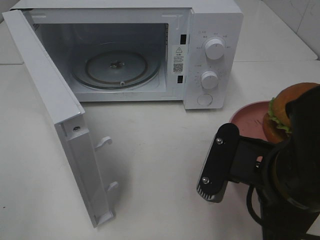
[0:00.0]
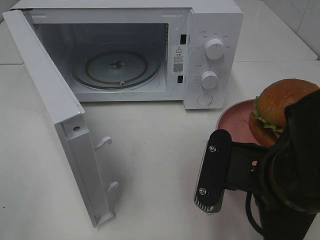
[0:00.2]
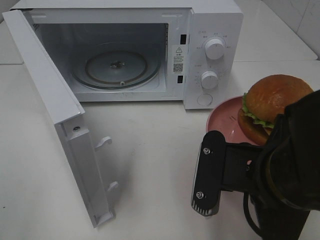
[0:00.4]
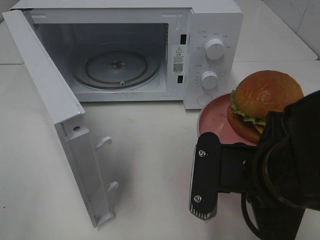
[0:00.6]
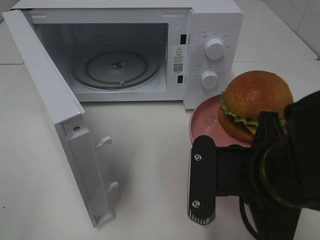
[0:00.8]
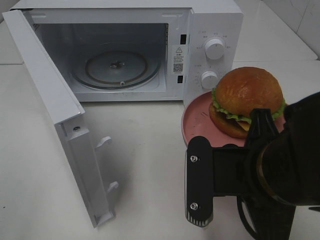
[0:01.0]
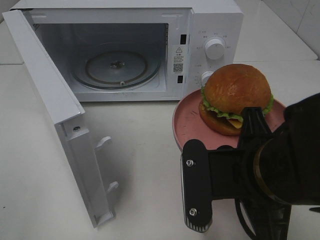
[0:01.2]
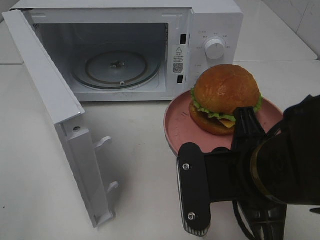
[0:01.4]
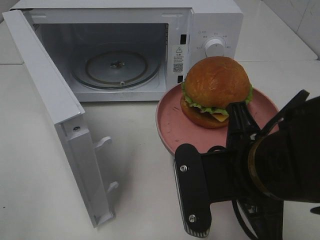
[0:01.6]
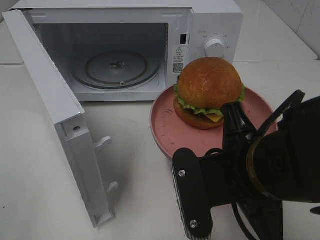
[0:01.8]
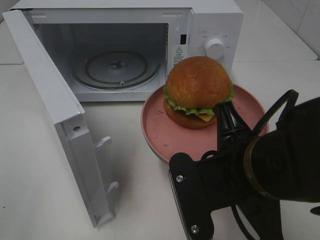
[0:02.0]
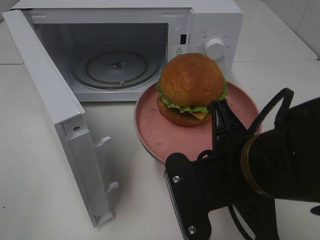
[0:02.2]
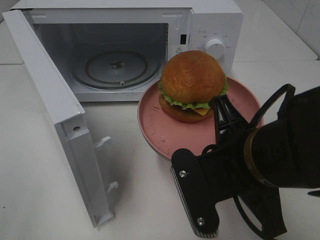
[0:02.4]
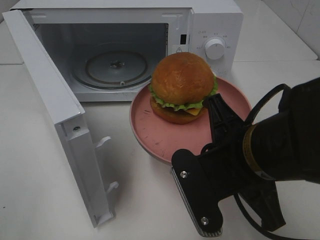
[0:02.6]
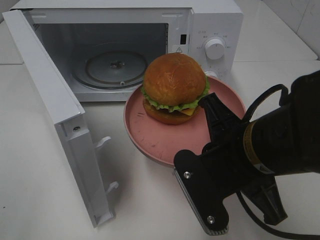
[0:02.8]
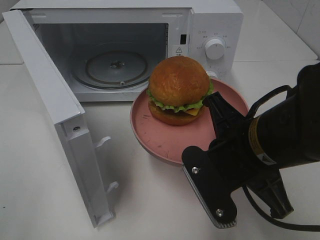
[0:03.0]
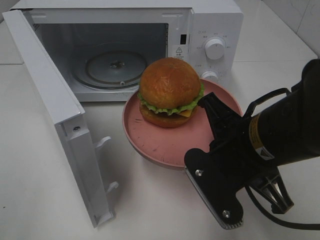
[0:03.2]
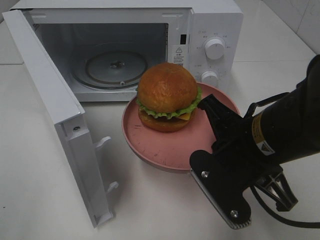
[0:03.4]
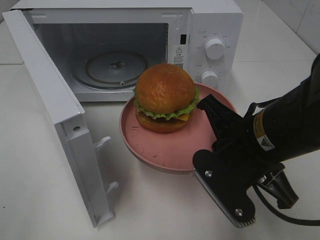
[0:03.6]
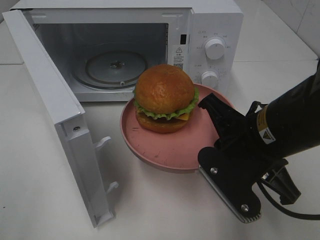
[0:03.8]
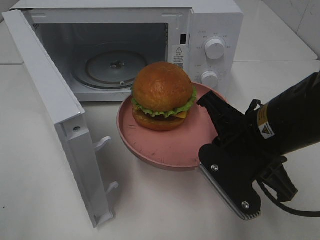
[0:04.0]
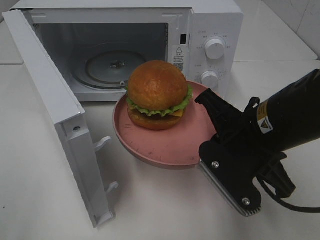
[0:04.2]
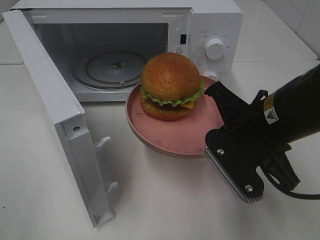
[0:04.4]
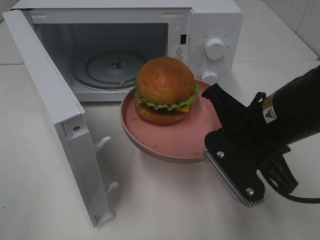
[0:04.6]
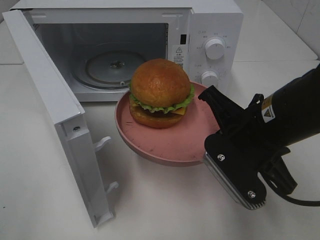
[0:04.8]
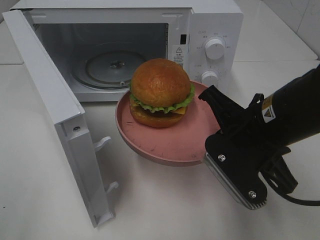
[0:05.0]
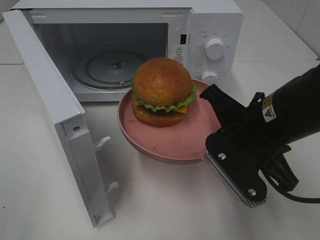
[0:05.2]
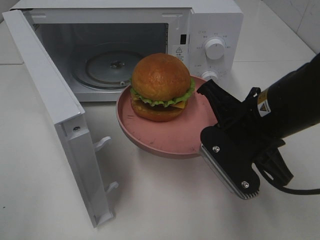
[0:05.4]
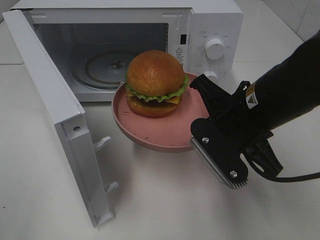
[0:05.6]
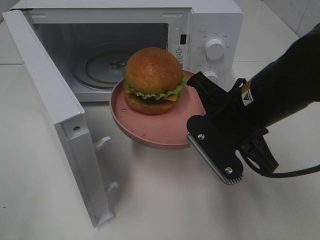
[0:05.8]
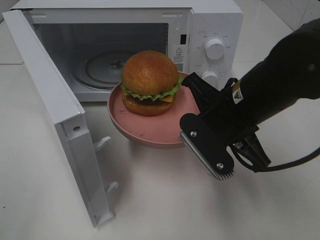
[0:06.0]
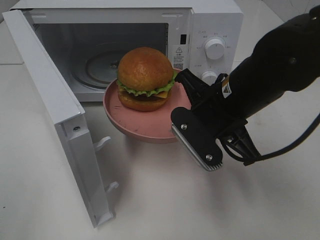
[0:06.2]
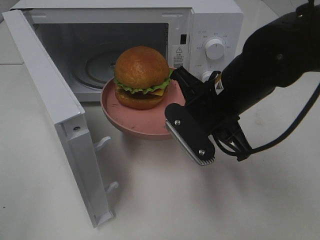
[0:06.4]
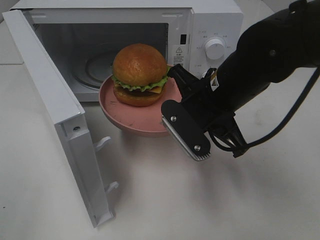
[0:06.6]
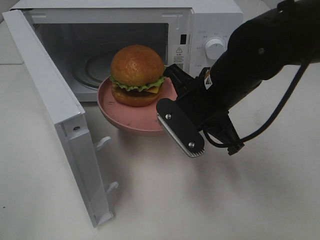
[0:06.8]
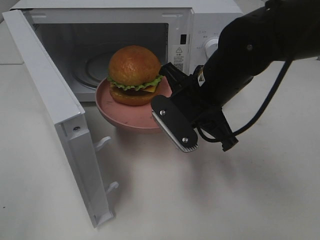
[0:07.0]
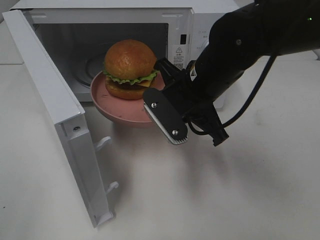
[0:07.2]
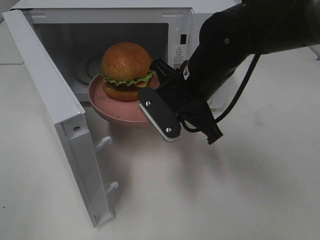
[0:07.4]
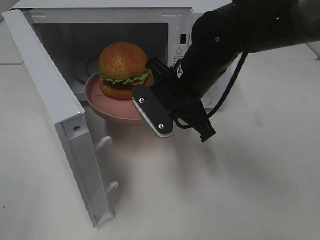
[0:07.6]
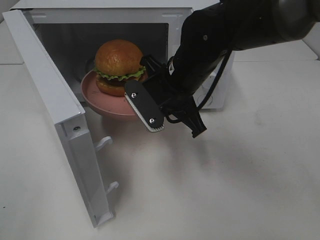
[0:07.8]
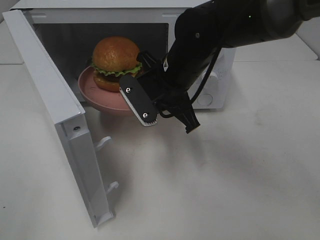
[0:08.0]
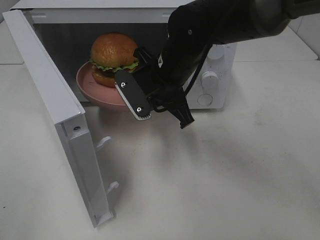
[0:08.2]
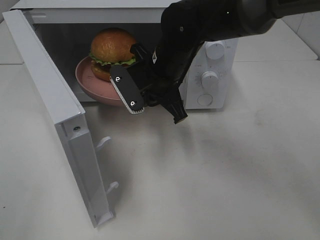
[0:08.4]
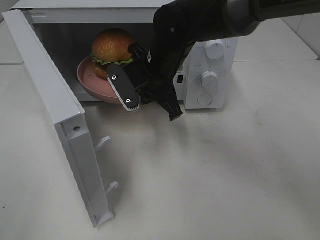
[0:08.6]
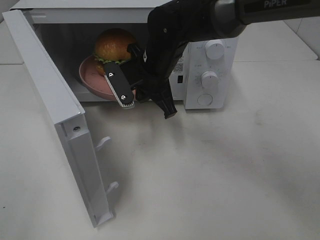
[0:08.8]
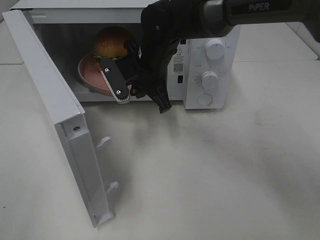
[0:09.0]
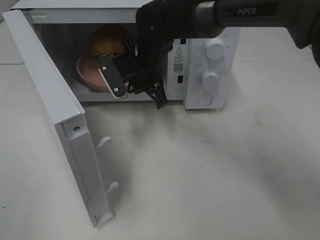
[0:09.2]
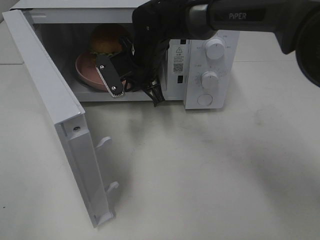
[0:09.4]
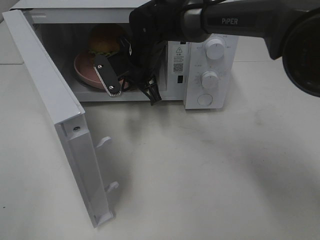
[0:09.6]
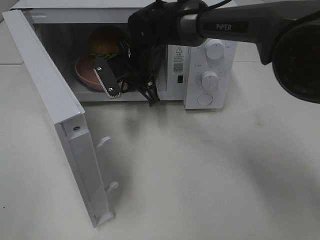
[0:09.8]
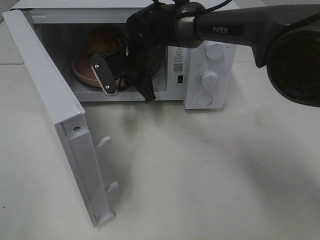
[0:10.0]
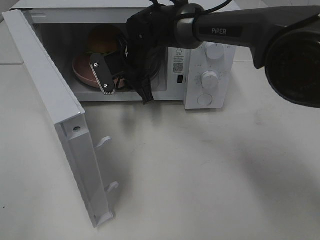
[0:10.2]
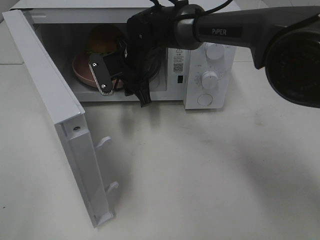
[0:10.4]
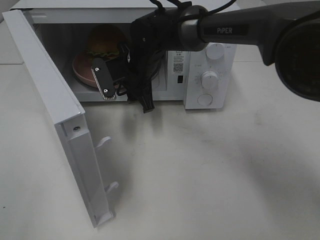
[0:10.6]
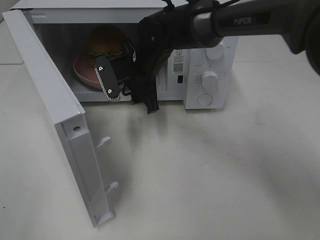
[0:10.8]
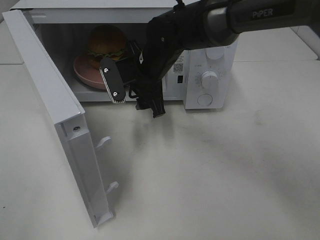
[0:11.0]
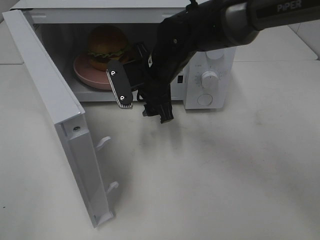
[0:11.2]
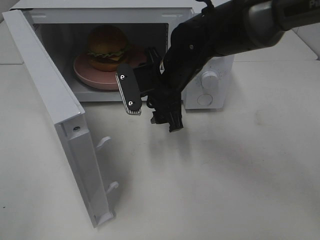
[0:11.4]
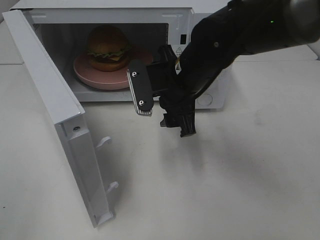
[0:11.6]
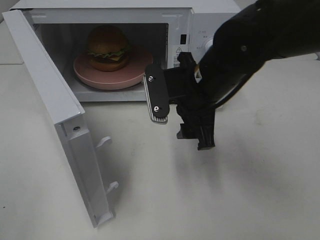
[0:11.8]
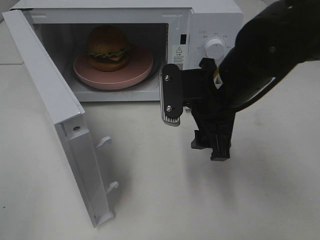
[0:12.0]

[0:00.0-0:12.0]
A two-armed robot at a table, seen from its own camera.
Task of the whole recording: Heat the burger.
Step, 0:00.0 to 0:11.4: Right hand: place the plate in the microwave.
0:03.0 to 0:04.4: The grippers move only a little.
0:04.4 to 0:06.0: The grippers stay close to where they were, moving slightly.
0:06.0 to 0:07.6: The right gripper heads forward and to the left, covering some 10 cm.
0:07.6 to 0:09.0: The right gripper shifts roughly 10 cm forward and to the left.
0:09.0 to 0:10.4: The right gripper ends up about 5 cm from where it was, and opens up.
0:10.4 to 0:12.0: The right gripper shifts roughly 20 cm backward and to the right.

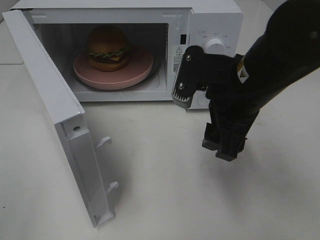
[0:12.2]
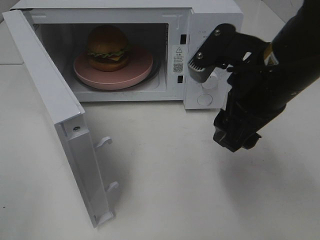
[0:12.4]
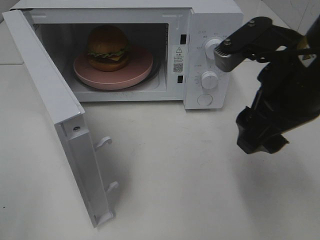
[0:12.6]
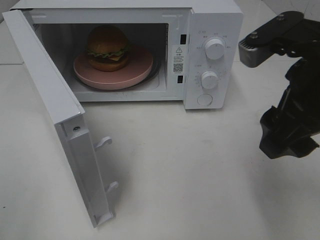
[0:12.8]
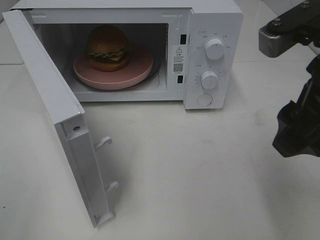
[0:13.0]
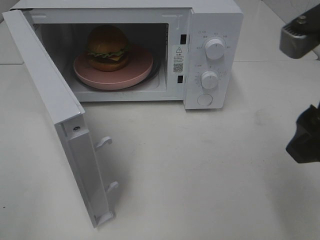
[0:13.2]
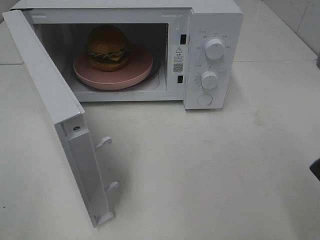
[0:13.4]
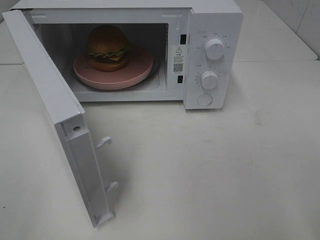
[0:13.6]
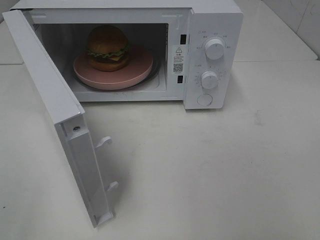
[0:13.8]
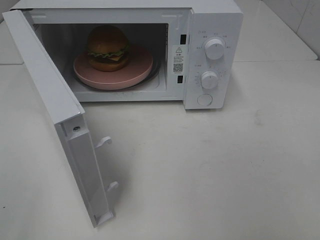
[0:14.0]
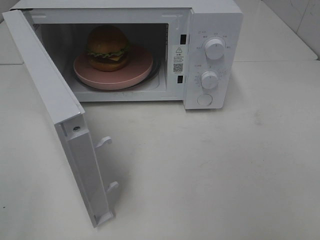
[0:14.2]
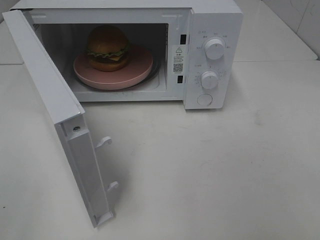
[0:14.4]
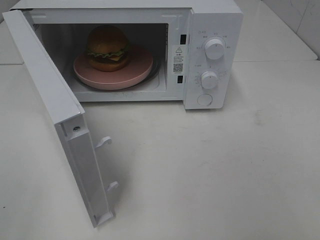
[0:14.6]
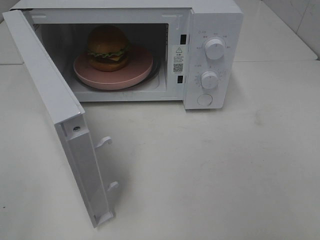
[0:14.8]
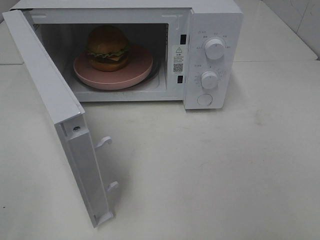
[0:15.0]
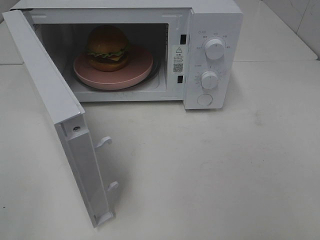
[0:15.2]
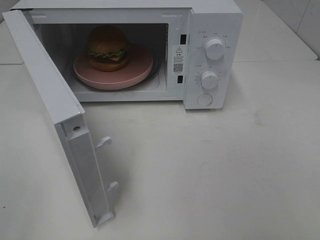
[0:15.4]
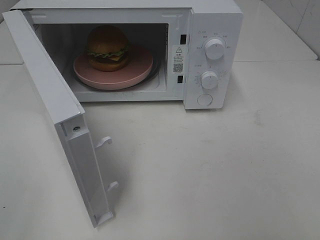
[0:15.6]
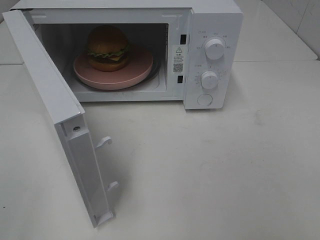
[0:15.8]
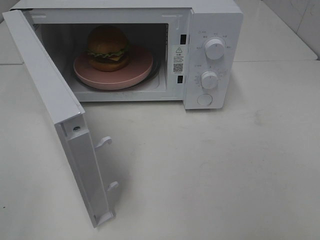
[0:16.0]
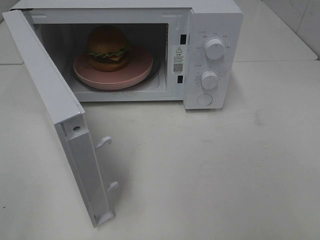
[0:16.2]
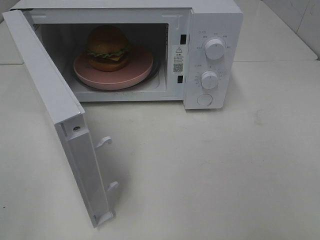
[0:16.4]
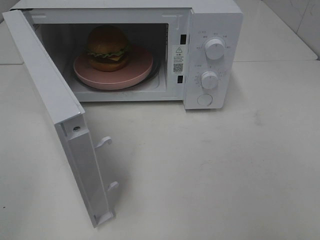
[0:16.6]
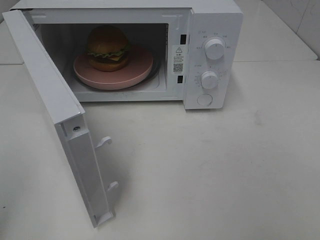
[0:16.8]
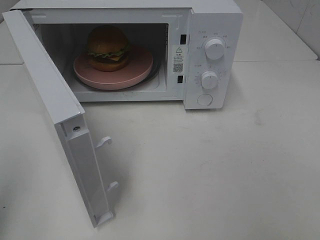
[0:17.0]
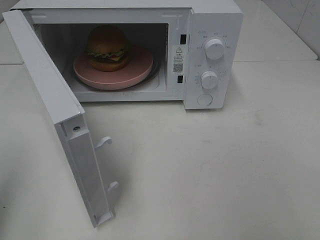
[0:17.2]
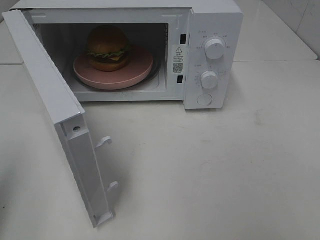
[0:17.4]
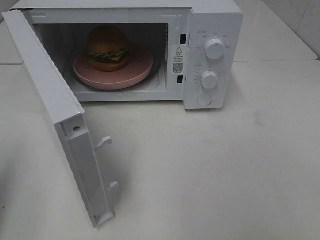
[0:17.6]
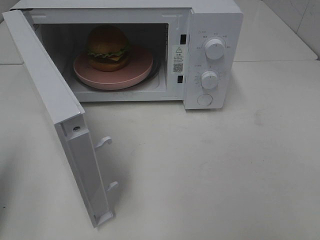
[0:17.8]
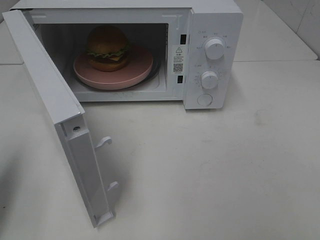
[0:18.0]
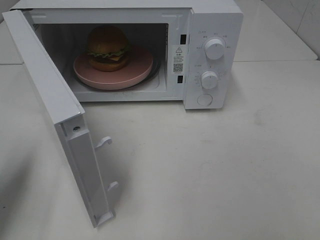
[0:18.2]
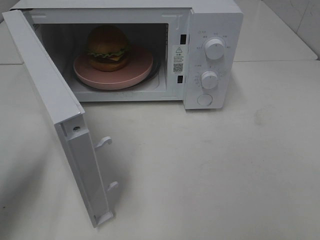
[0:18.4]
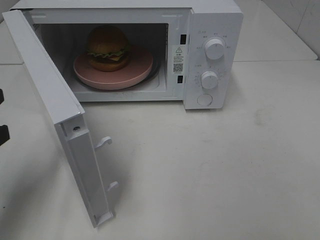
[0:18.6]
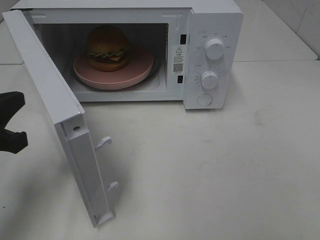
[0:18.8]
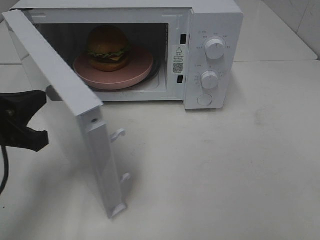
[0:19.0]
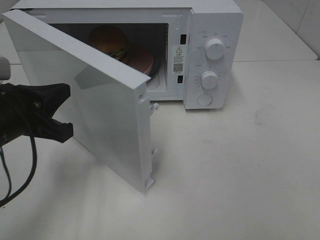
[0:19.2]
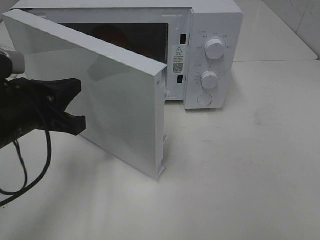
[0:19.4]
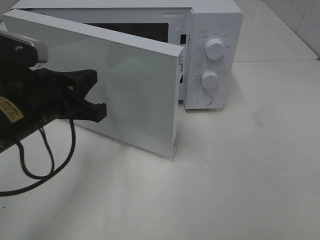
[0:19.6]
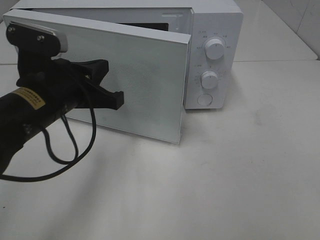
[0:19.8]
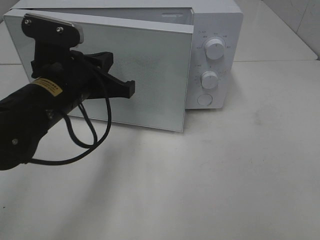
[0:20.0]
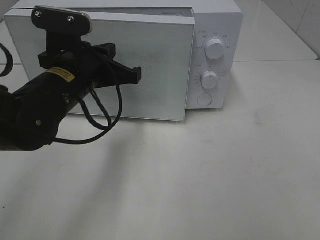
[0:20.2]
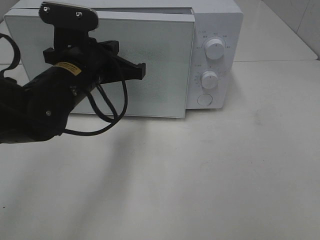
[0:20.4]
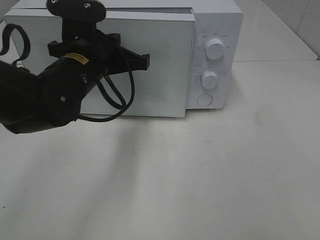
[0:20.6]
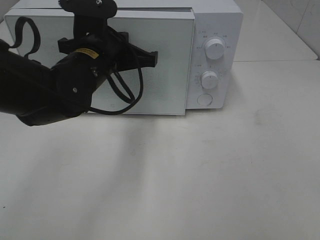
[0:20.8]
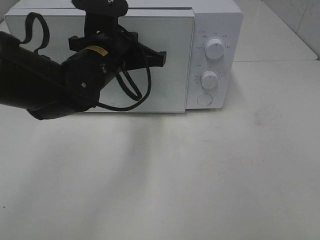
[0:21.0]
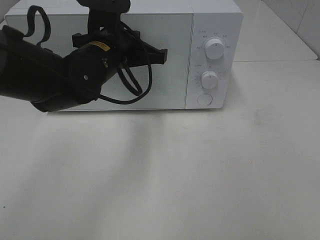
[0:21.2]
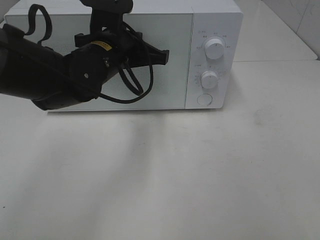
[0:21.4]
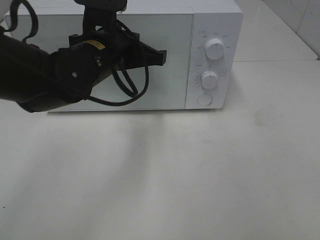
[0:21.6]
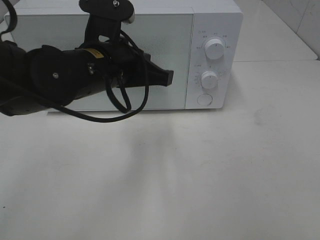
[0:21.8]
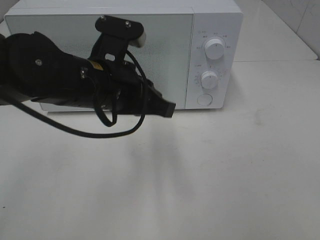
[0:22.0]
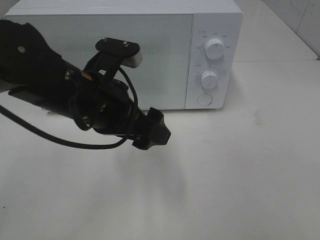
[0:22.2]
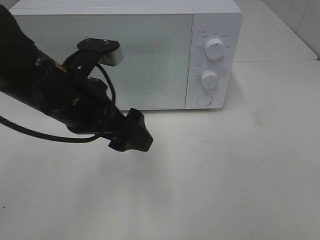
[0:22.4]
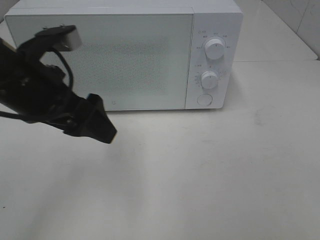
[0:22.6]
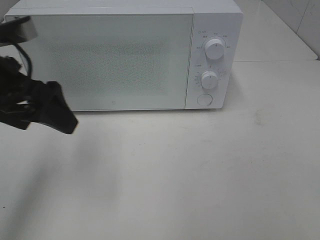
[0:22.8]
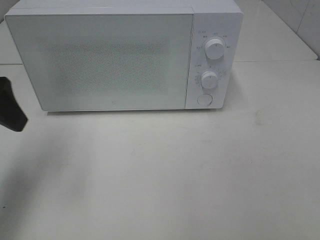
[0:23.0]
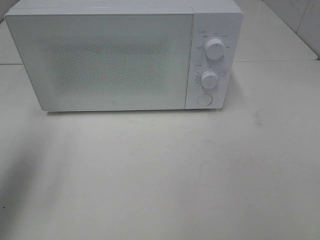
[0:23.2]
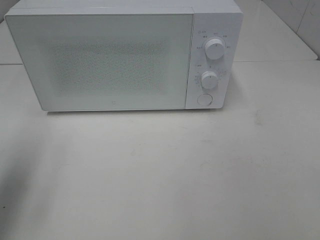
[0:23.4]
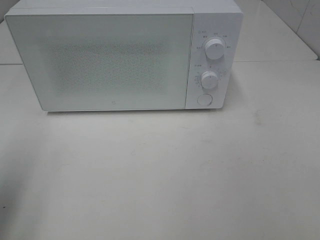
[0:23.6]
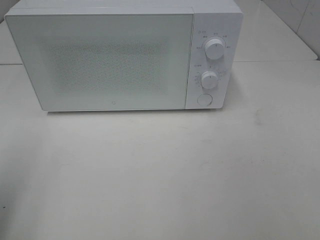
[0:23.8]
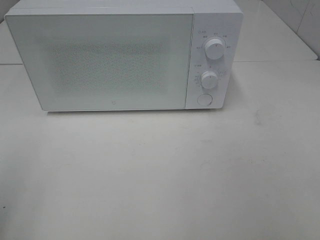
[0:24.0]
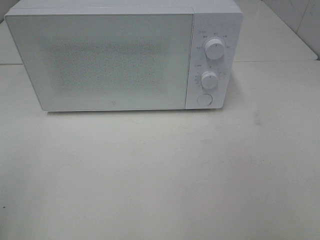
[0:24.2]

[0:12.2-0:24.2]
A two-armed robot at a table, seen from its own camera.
Task of the whole recording: Heat the burger.
Step, 0:12.2 to 0:22.0: Left hand: close the microwave door.
0:12.2 to 0:13.8: The right gripper is displaced backward, to the right and upward by roughly 25 cm.
0:16.6 to 0:18.2: The left gripper shifts approximately 15 cm forward and downward, and closes up.
0:18.2 to 0:19.8: The left gripper goes approximately 20 cm to the right and forward.
0:19.8 to 0:21.2: The left gripper is displaced forward and to the right by approximately 10 cm.
0:21.2 to 0:22.6: The left gripper shifts some 15 cm backward and to the left, and opens its fingers.
0:22.6 to 0:24.2: The left gripper travels backward and to the left by some 25 cm.
